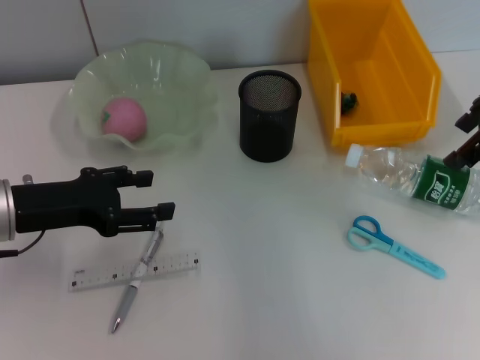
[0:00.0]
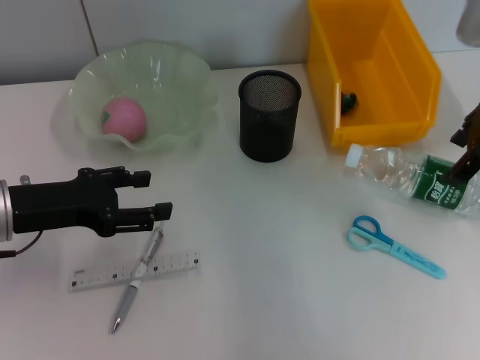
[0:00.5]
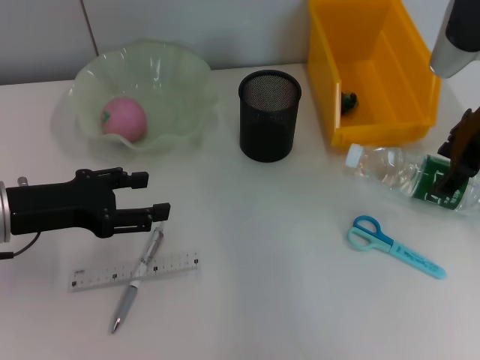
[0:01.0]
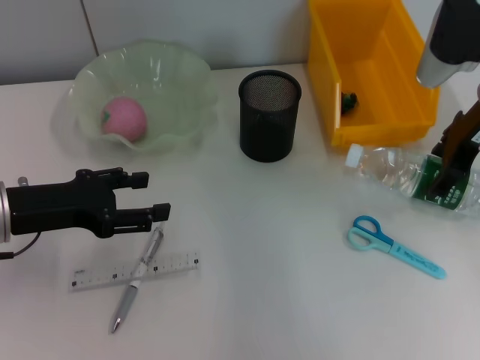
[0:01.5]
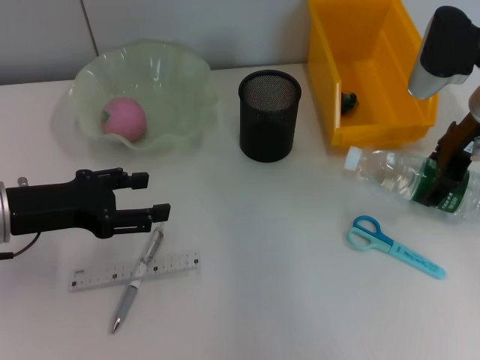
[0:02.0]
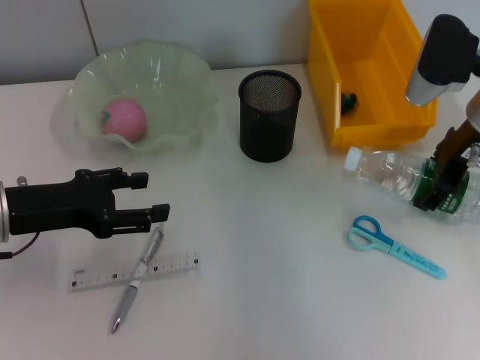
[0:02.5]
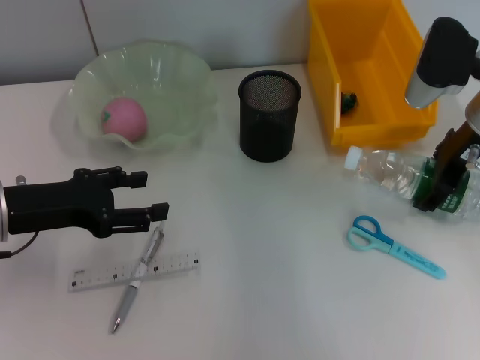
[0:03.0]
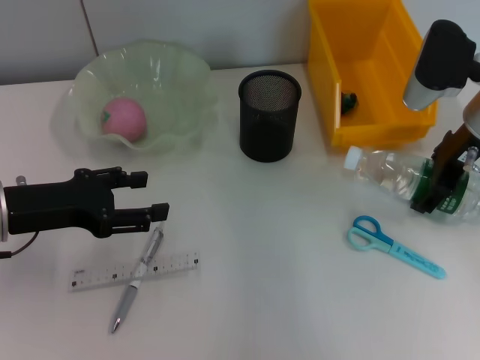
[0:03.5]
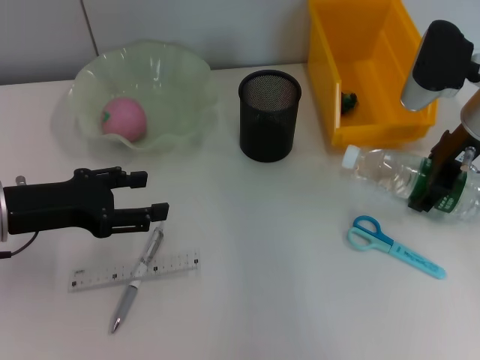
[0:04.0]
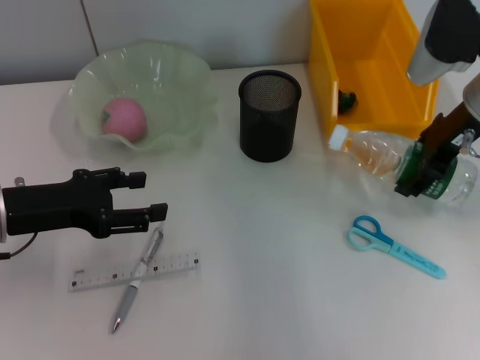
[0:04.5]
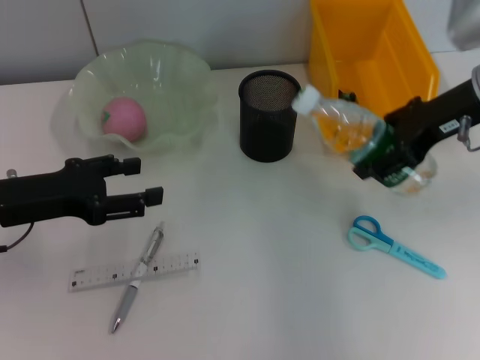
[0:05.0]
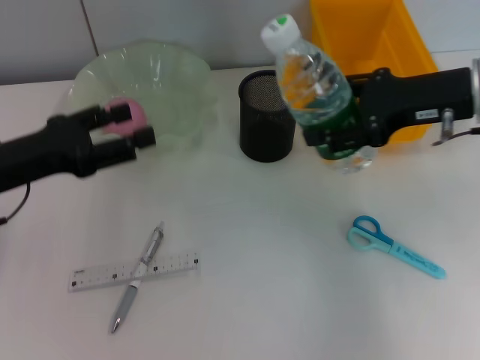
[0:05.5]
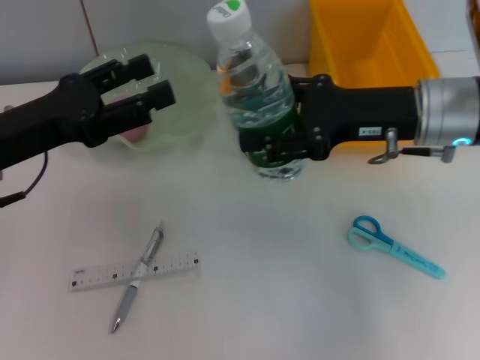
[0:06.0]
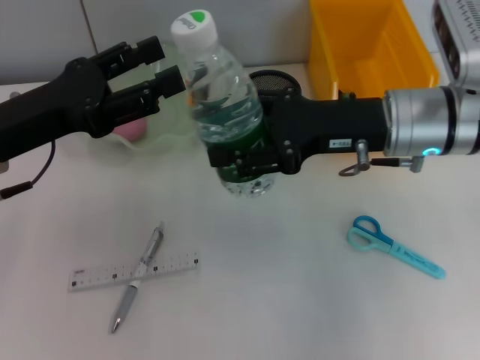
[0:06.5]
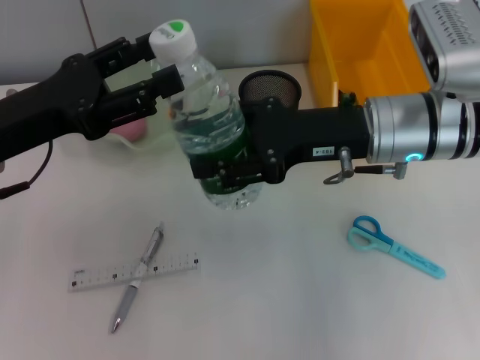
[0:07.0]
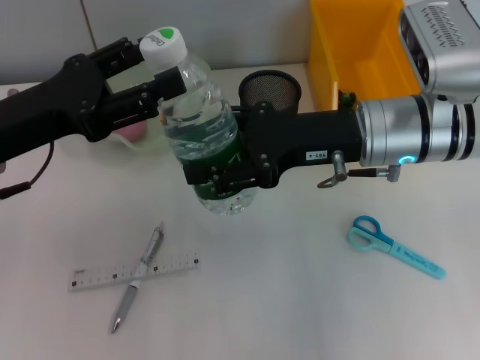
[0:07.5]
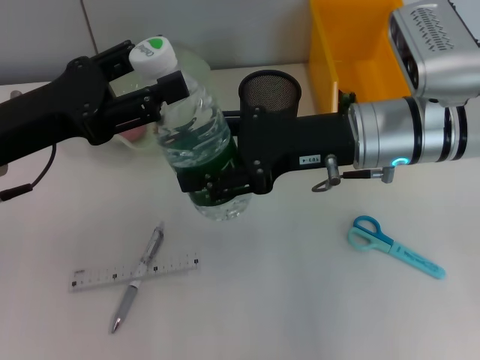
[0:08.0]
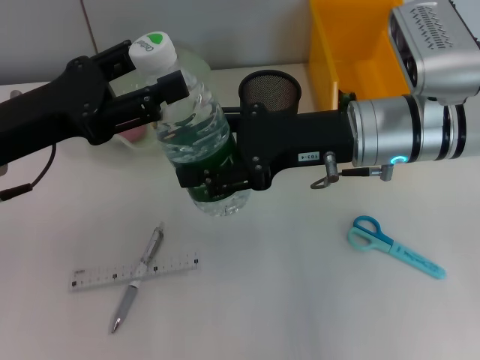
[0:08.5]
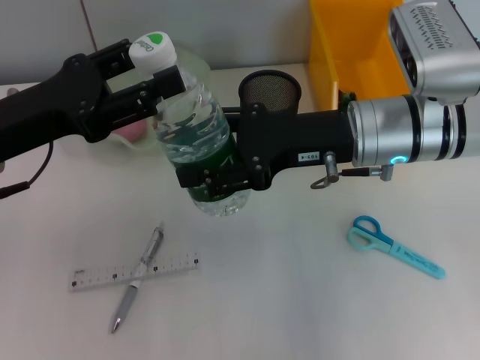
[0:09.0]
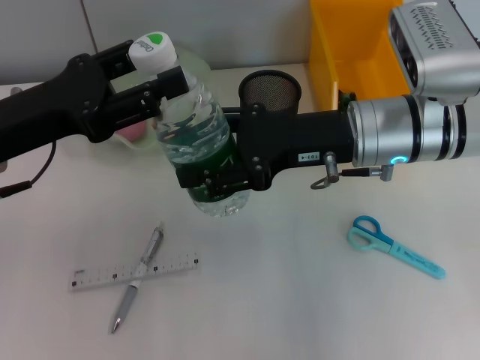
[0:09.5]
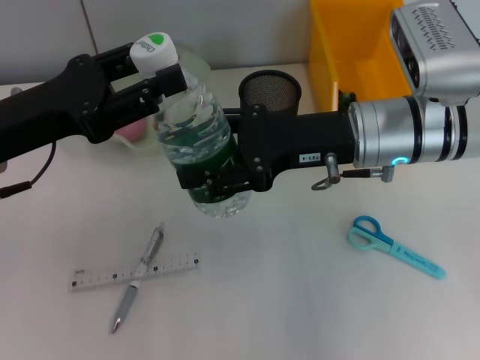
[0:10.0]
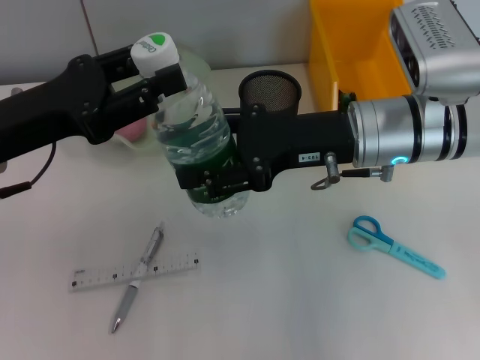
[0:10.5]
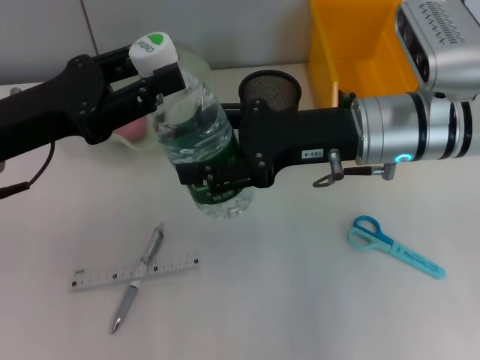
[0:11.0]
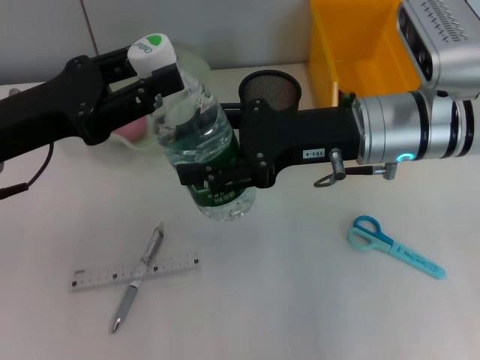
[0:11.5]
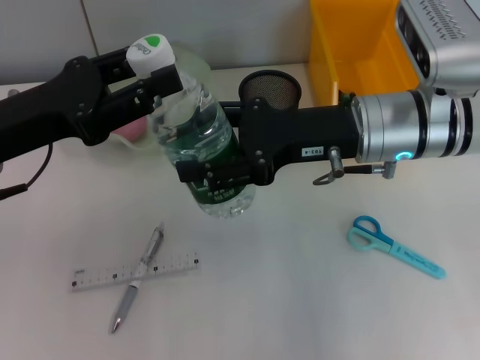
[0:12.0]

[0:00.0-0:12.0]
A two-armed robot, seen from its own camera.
Step, 0:00.0 to 0:03.5: Grab the water bottle with the right hand.
0:00.0 to 0:02.0: The right gripper shifts approximately 10 cm downward.
0:02.0 to 0:04.0: The grippers make only small movements.
0:04.0 to 0:06.0: The right gripper travels to the left and backward by about 5 cm.
0:06.0 to 0:08.0: The right gripper is displaced to the left by about 5 cm.
0:08.0 to 0:12.0: The two grippers keep their place.

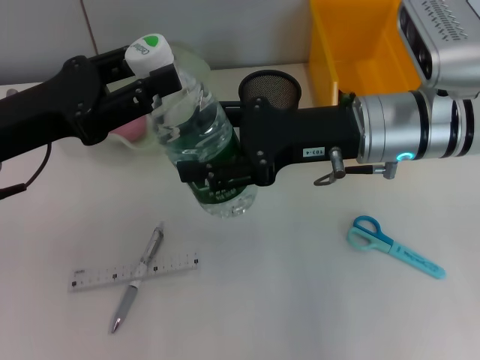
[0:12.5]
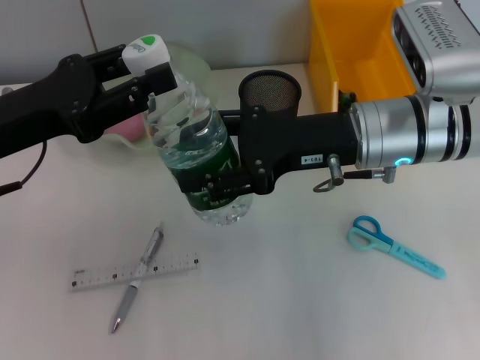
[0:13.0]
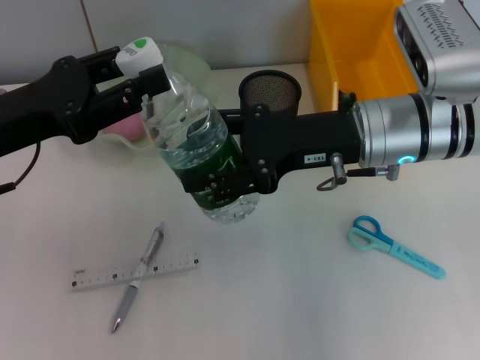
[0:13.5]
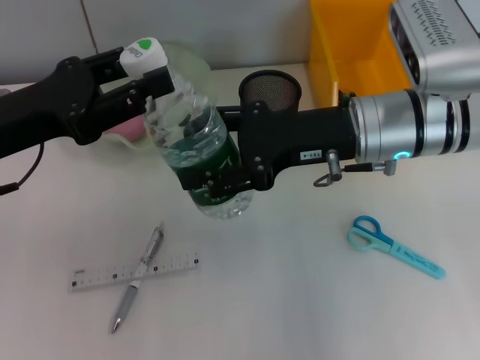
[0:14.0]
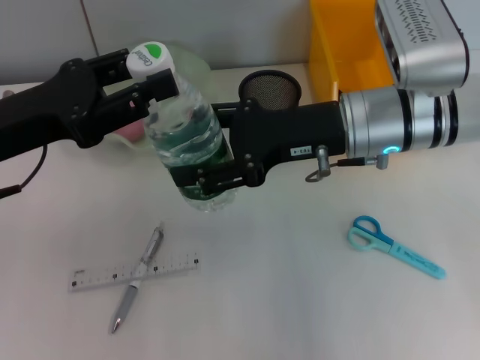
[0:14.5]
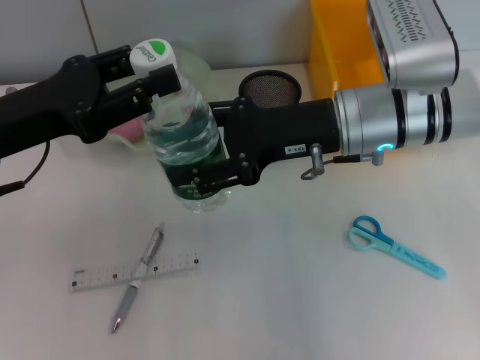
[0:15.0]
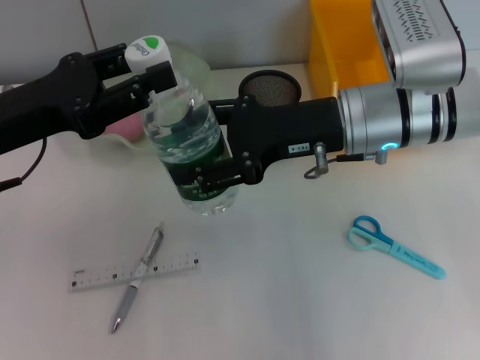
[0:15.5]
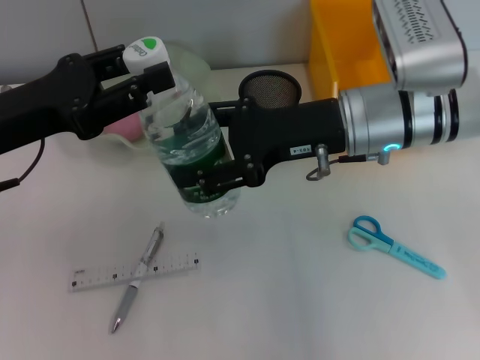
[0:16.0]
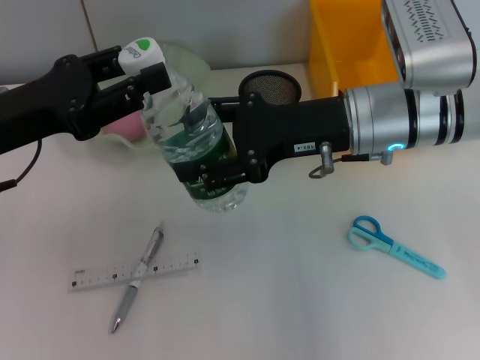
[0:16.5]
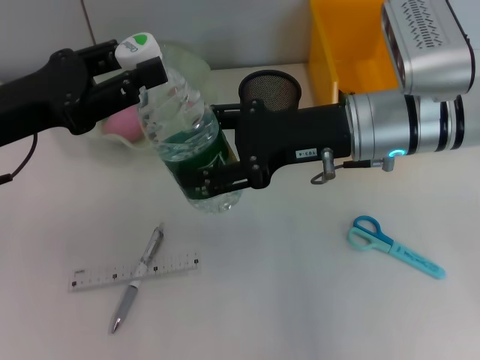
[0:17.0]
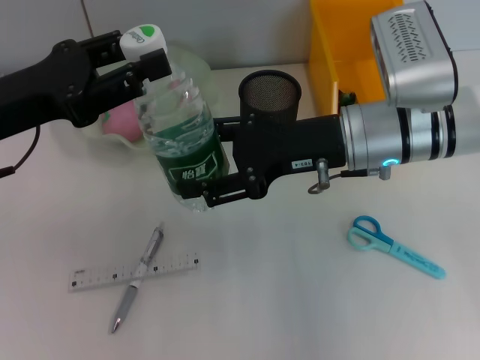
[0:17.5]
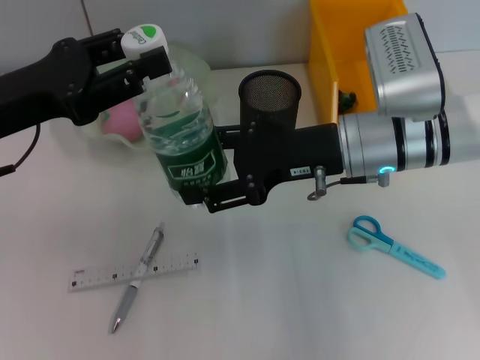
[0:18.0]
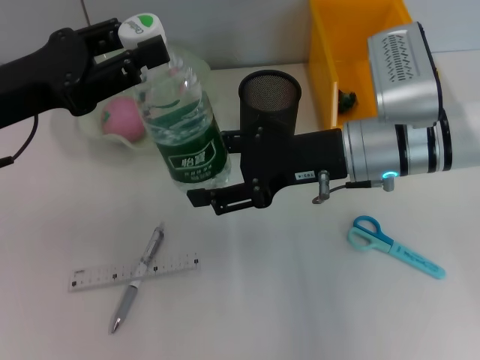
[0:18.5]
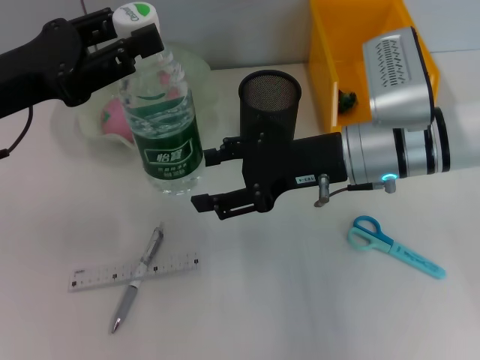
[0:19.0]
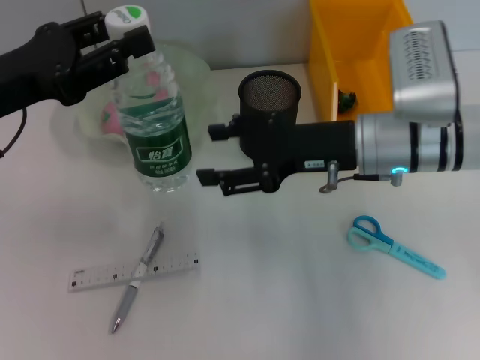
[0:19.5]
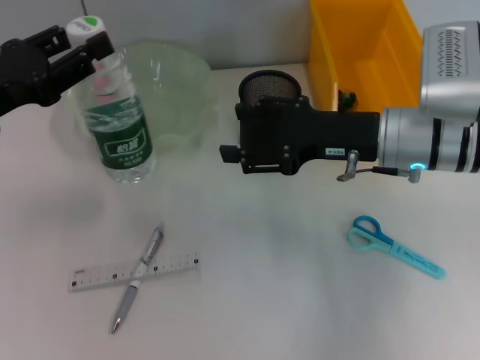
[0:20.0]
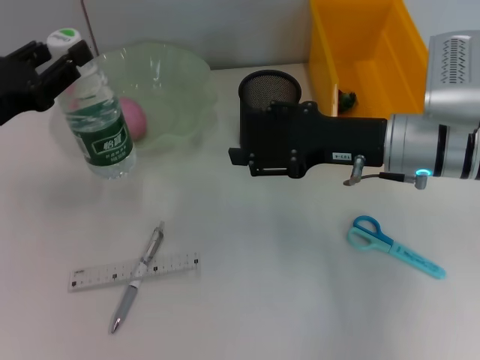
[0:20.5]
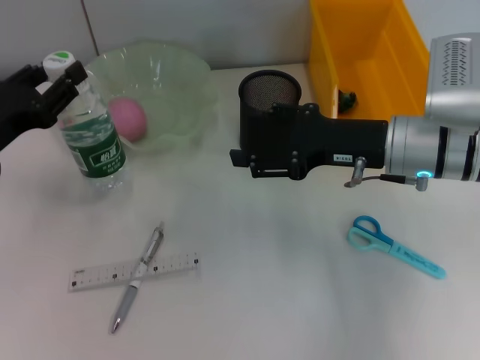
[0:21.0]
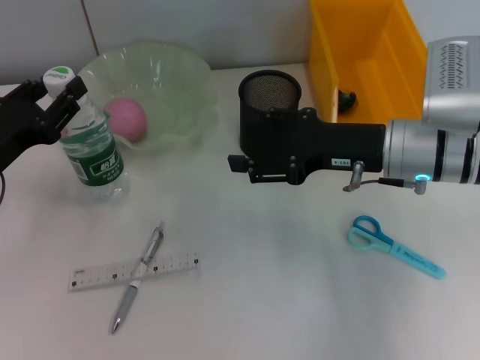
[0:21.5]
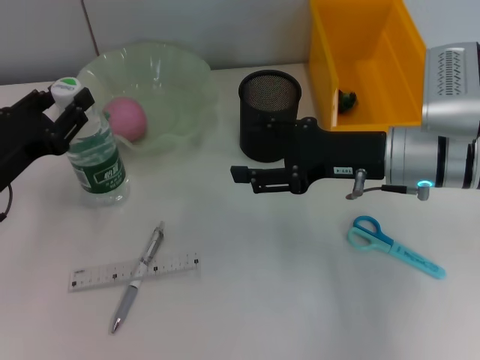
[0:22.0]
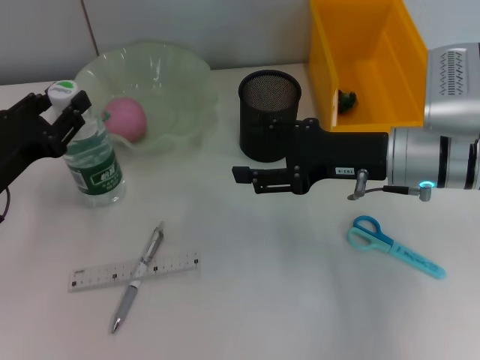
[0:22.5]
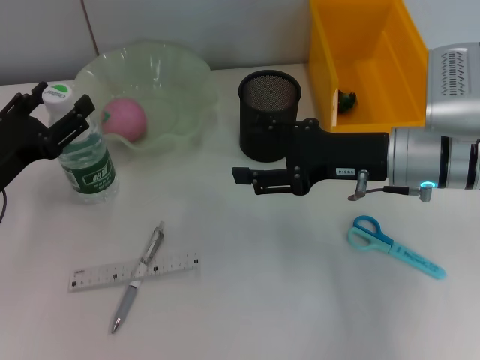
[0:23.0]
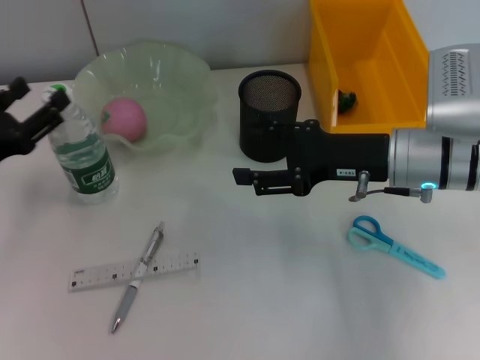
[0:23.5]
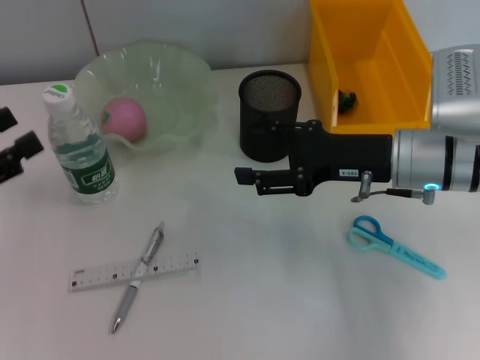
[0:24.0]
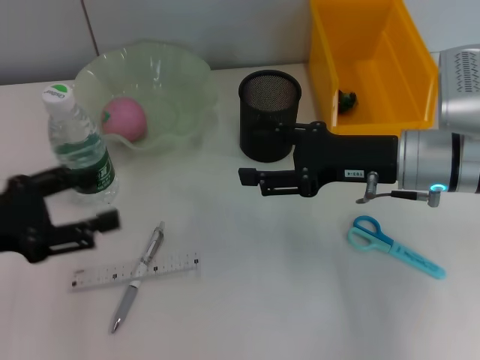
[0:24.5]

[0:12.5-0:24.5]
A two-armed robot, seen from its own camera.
Step, 0:12.5 to 0:18.0: Pass the water bottle from the right hand to the left hand.
Step, 0:19.0 to 0:22.5: Place the water bottle on the table with the left hand.
0:12.5 to 0:14.5: The grippers make only small movements.
0:14.5 to 0:16.5: The two grippers keep their place.
0:18.5 to 0:20.5: The left gripper travels downward by approximately 5 cm.
0:20.5 to 0:22.5: The left gripper heads downward, covering approximately 5 cm.
0:22.5 to 0:24.5: The left gripper changes place by some 5 cm, and opens up.

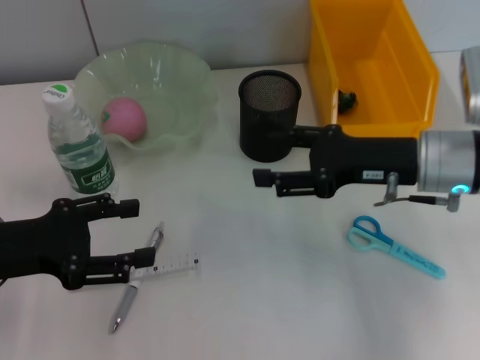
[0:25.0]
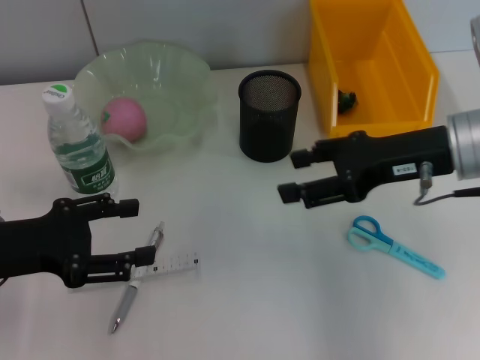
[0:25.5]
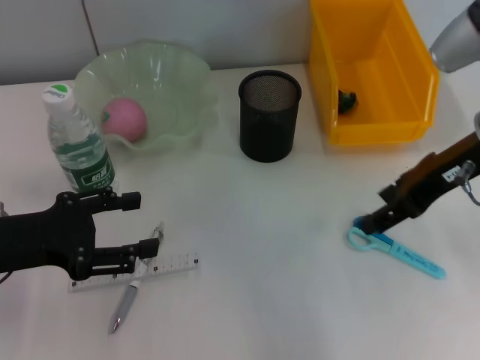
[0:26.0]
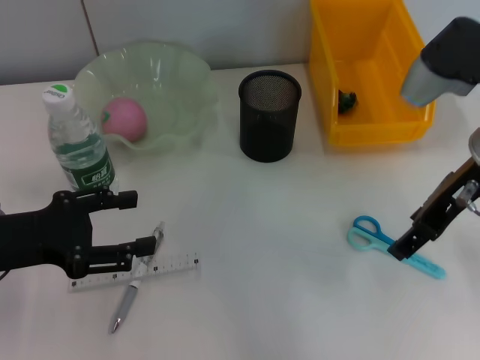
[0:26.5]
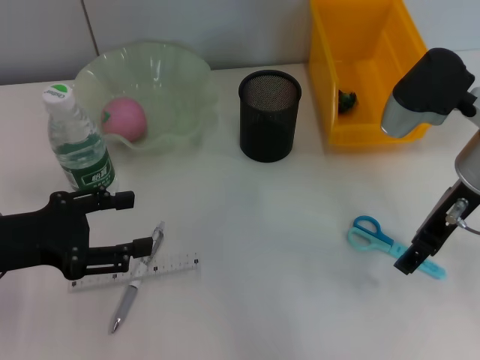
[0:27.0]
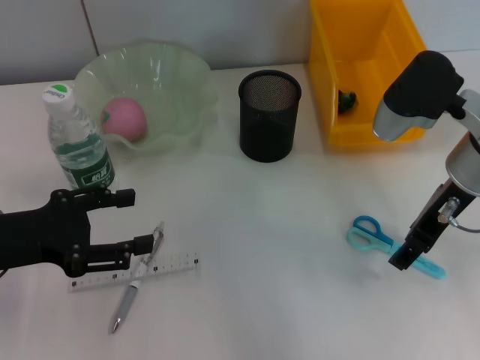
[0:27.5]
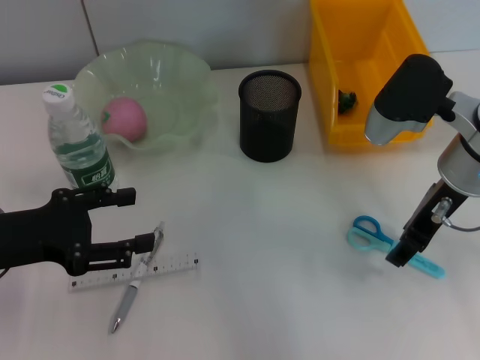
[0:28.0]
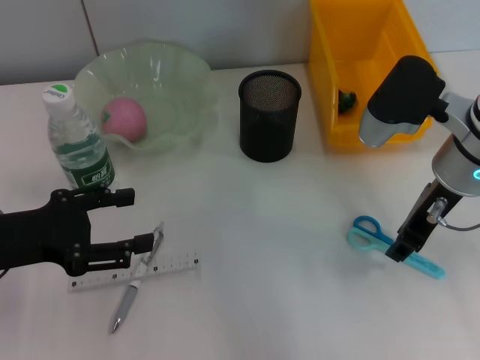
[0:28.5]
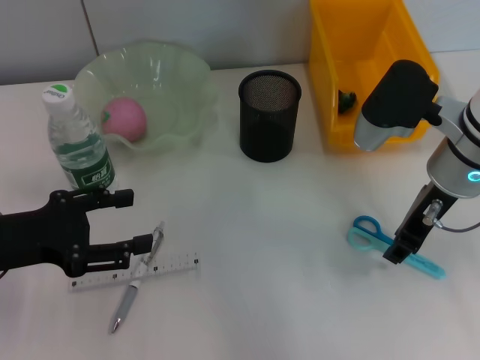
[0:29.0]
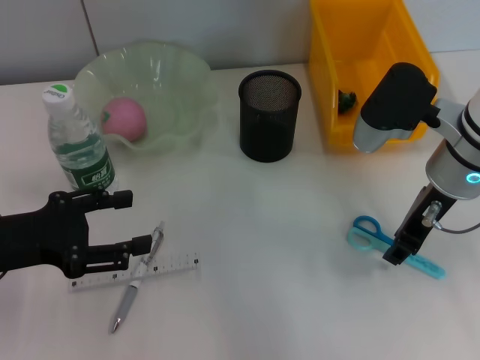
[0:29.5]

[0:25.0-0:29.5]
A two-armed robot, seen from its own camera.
0:27.0 to 0:29.5: The right gripper closes.
